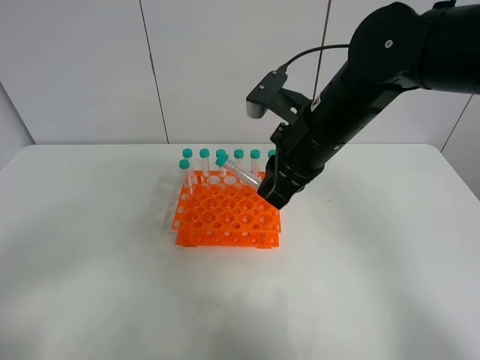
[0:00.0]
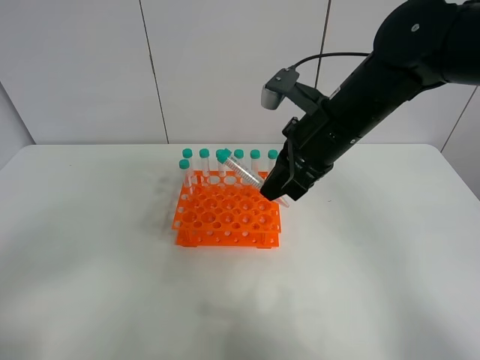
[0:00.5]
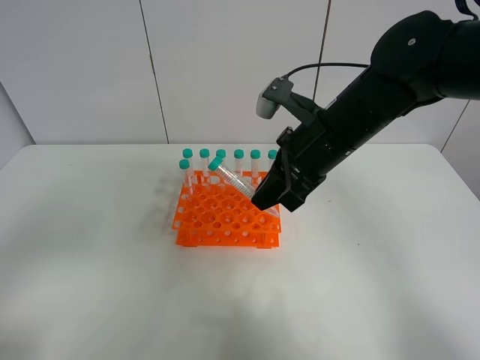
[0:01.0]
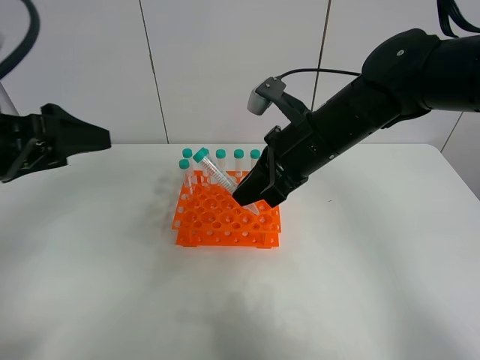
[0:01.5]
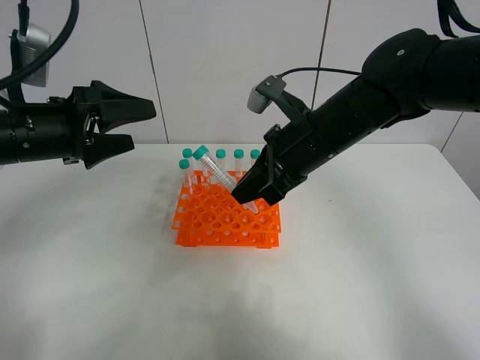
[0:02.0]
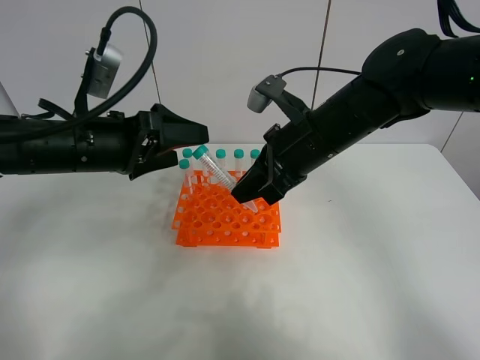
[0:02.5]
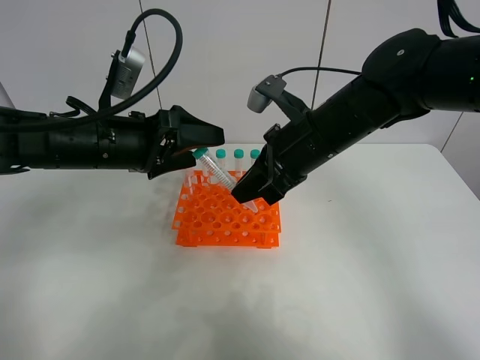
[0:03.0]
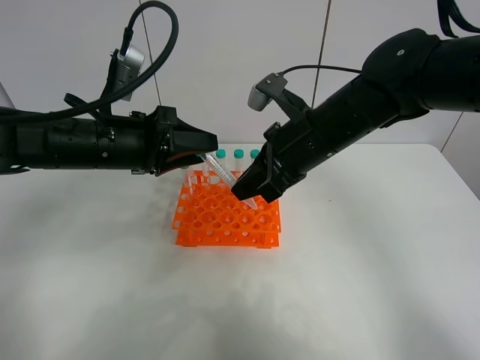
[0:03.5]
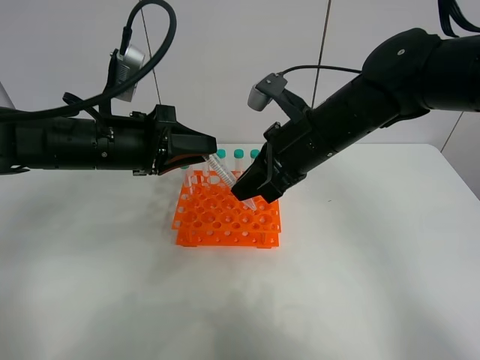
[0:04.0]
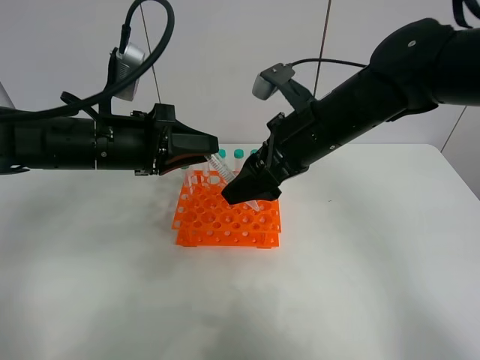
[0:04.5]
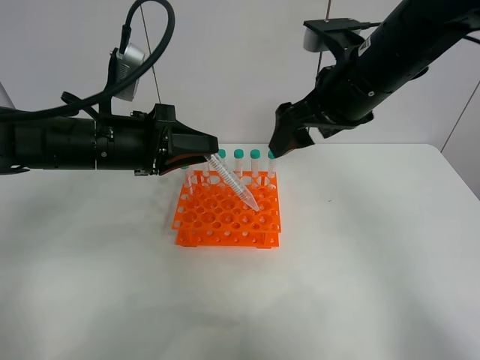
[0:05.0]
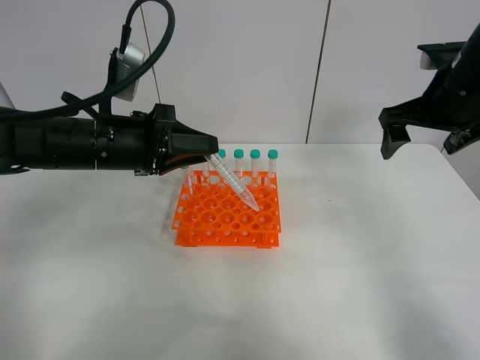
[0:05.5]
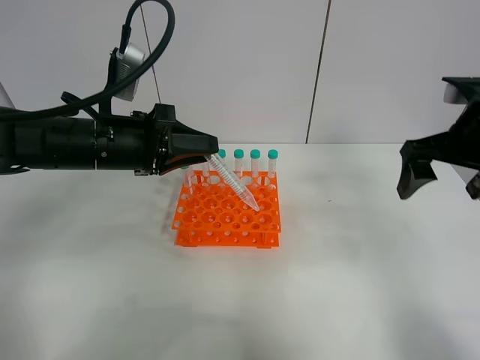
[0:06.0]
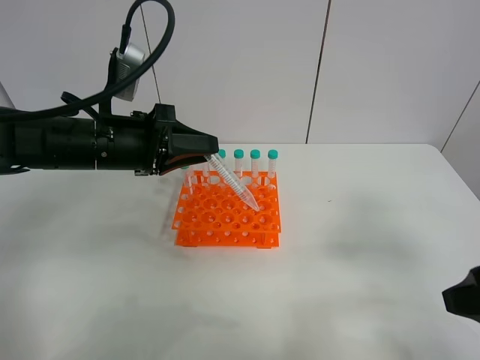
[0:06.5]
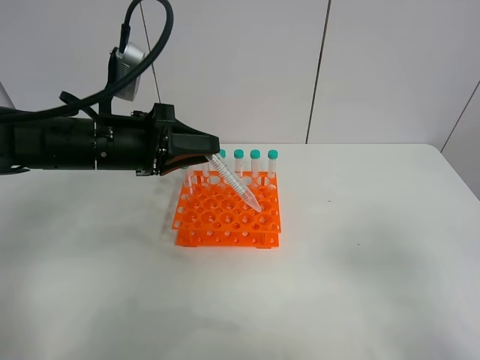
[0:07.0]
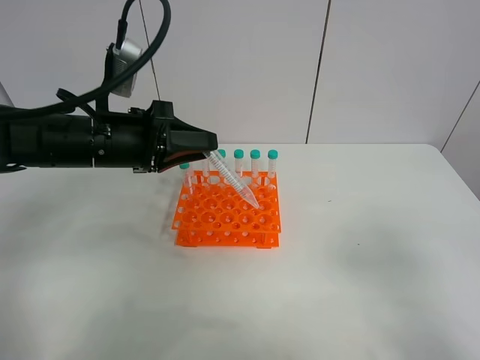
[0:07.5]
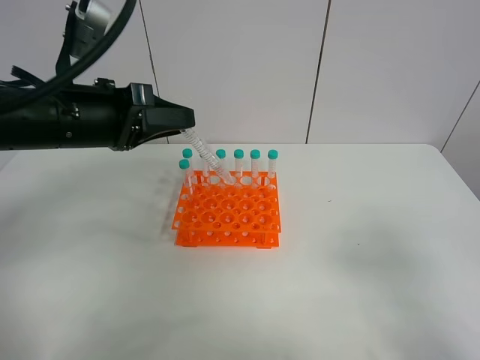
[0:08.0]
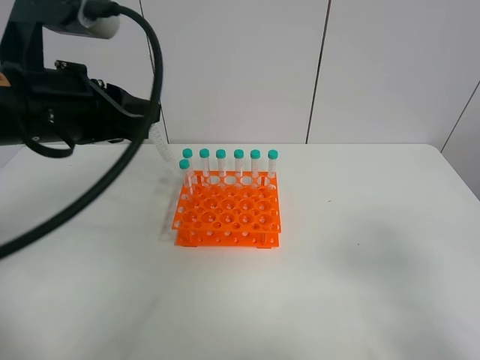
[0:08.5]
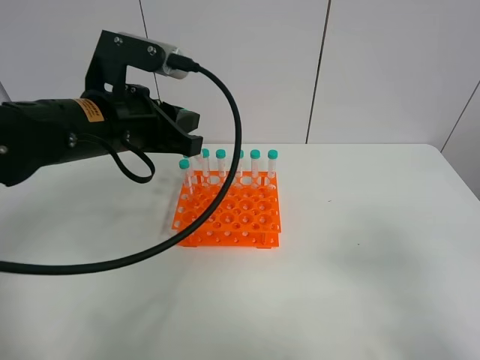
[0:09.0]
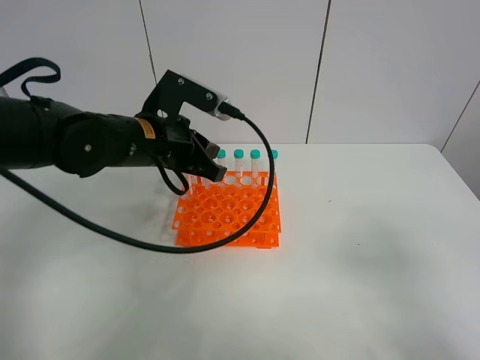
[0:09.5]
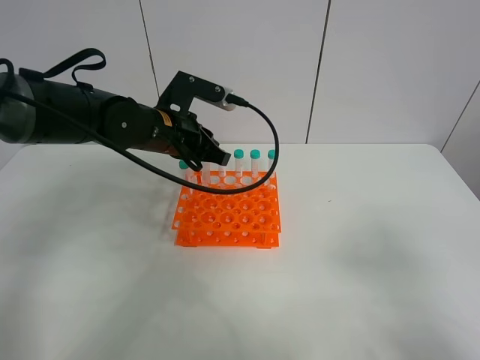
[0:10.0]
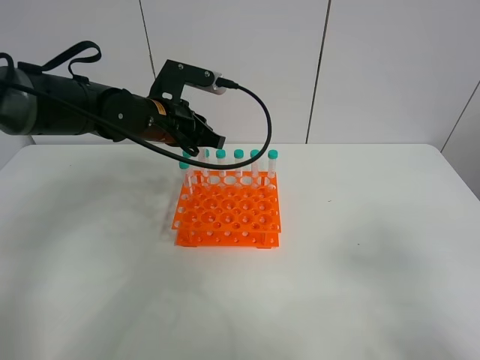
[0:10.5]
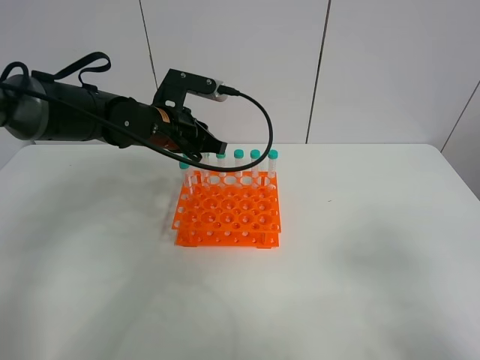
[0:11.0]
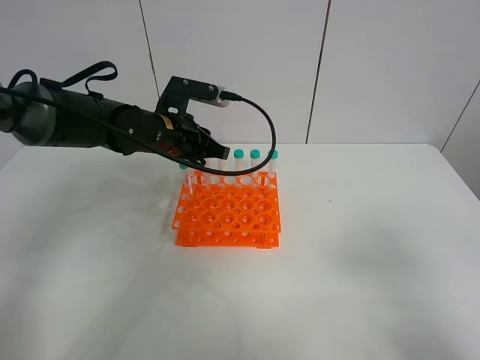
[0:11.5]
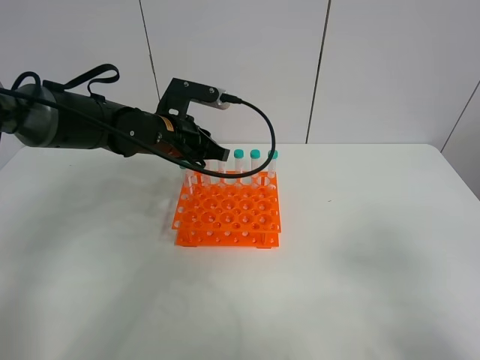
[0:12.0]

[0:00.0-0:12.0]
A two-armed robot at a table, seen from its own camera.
Task of the whole recording: Put the test tube on the table back onto the test tube rack.
Step, 0:00.0 to 0:04.5: Move the test tube from the right gripper to the left gripper.
0:00.0 to 0:02.0: The left gripper is displaced forward by approximately 30 cm.
0:02.0 to 0:04.0: The left gripper travels to the right by some 10 cm, and closes its fingers.
0:04.0 to 0:06.0: The right gripper travels to the right by roughly 20 cm, and opens its fingers.
0:06.0 to 0:08.0: The right gripper is displaced backward by roughly 25 cm. The left gripper ends up roughly 5 cm from where it was.
0:08.0 to 0:10.0: The left gripper is displaced forward, downward and to the right by some 15 cm.
0:10.0 to 0:12.0: There are only small adjustments of the grippers.

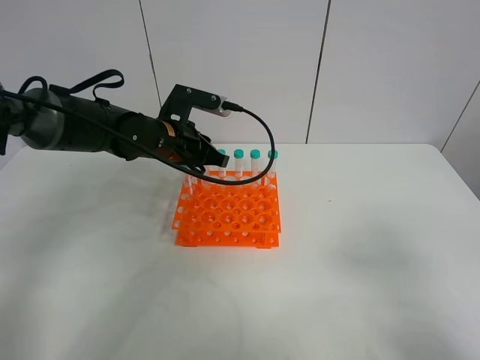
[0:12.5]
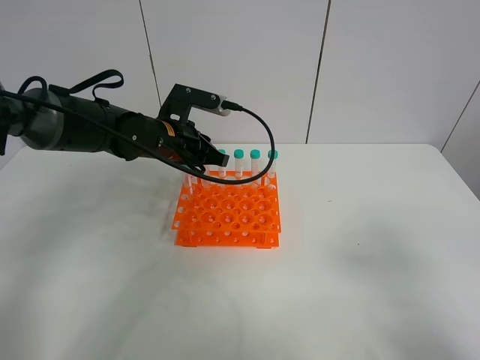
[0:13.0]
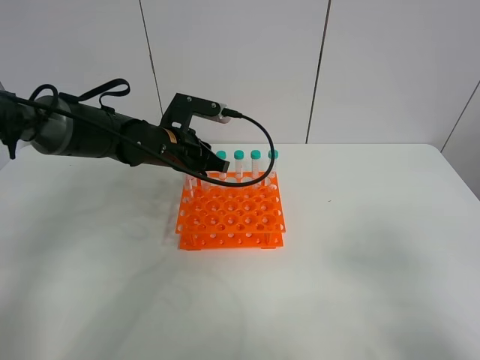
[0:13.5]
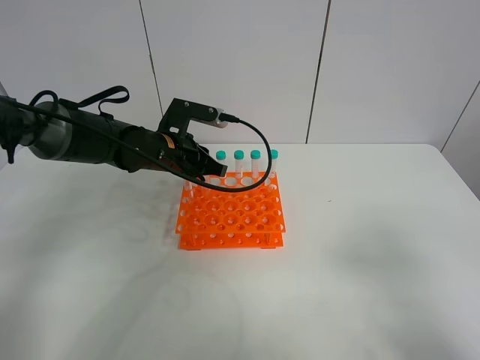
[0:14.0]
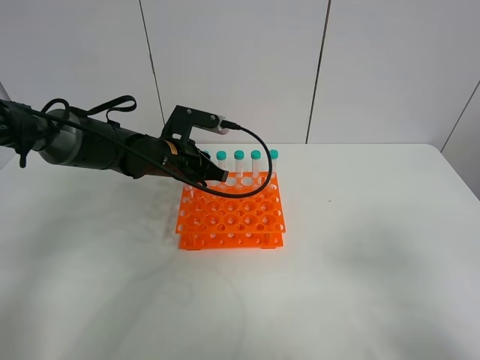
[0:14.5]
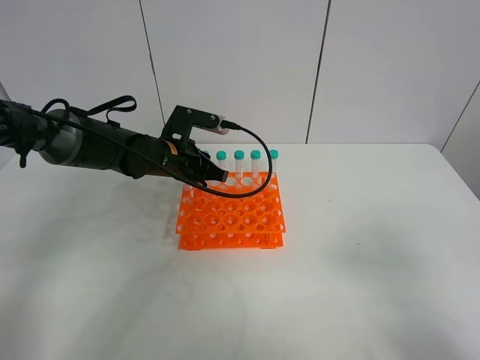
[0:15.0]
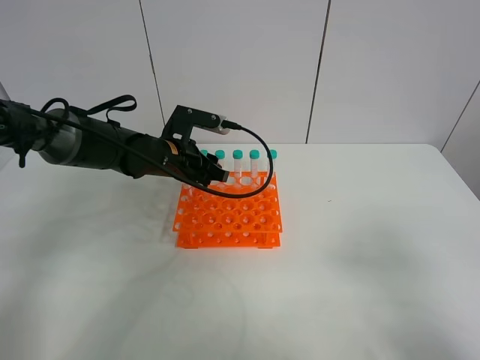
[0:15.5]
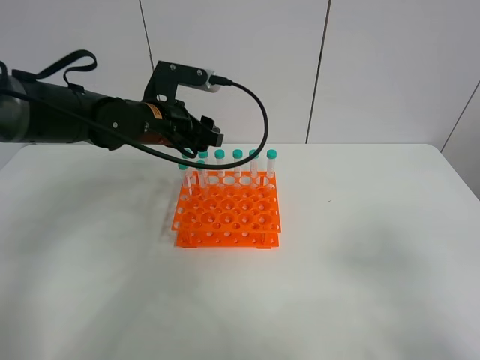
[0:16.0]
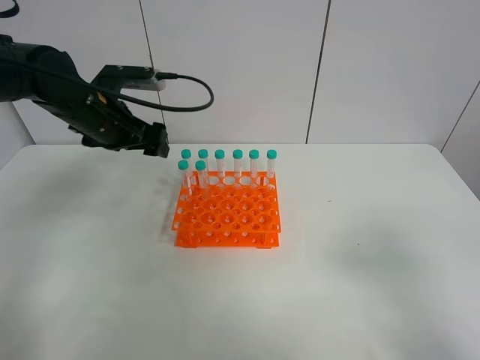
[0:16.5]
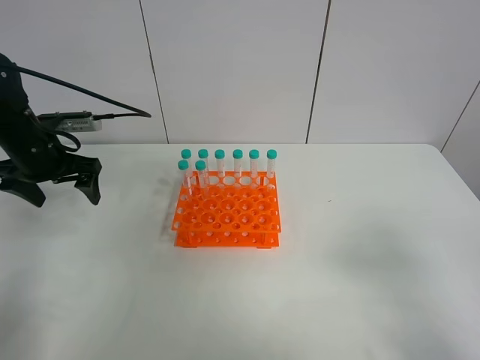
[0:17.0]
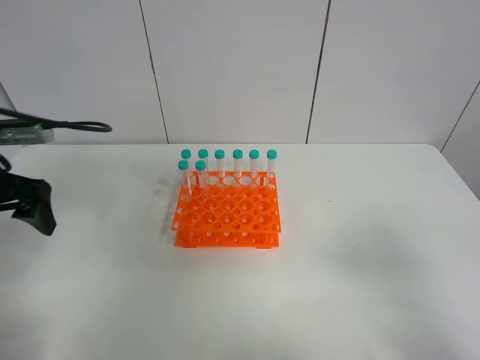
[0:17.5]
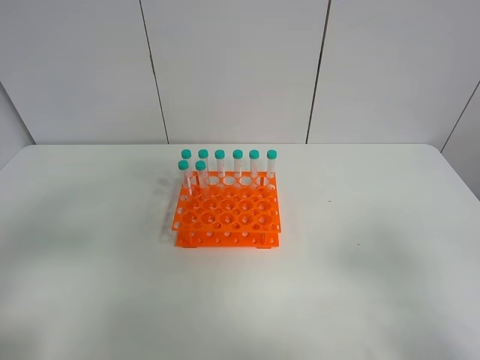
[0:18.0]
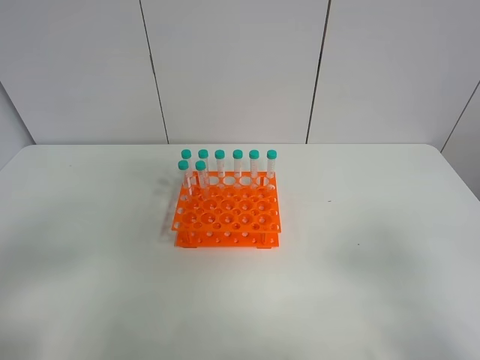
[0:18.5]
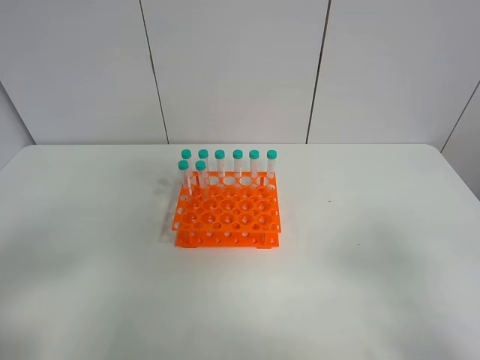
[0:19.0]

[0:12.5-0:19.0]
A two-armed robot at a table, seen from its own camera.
Task of the whole recording: Put the test tube on the table back onto the test tube rack.
Step, 0:12.5 to 0:15.5: Place the test tube on the test tube rack with the left gripper.
0:12.5 to 0:14.5: The grippers move only a little.
0:14.5 to 0:17.0: The left gripper travels to the left by roughly 20 cm, and opens its fingers.
0:17.0 to 0:19.0: The left gripper travels backward by about 35 cm.

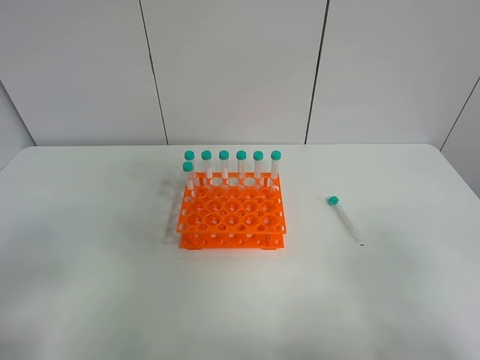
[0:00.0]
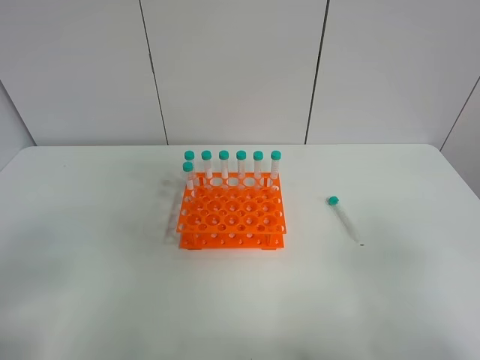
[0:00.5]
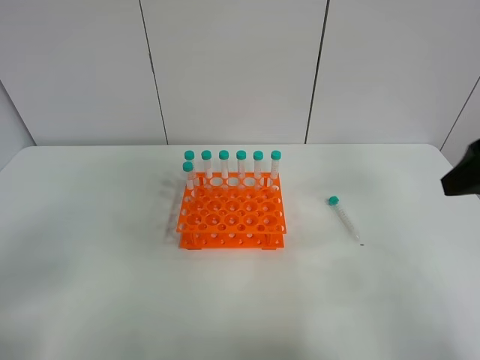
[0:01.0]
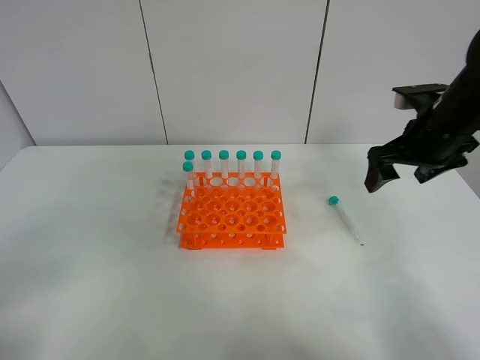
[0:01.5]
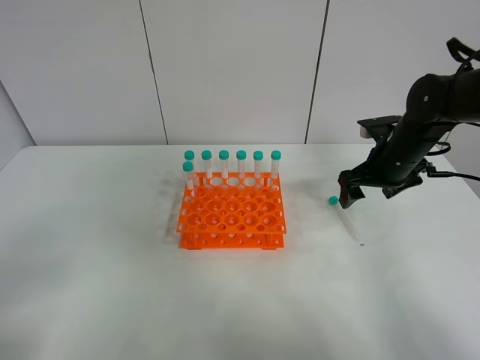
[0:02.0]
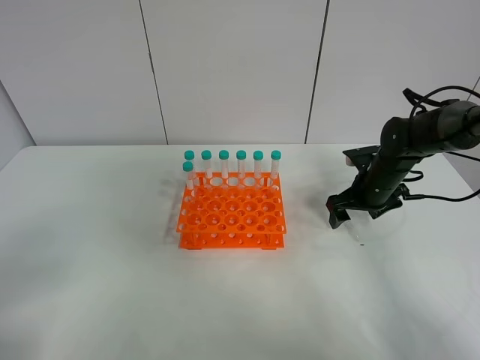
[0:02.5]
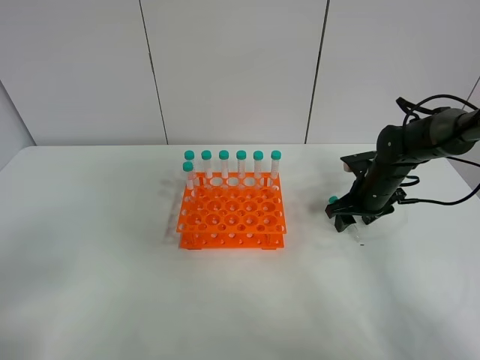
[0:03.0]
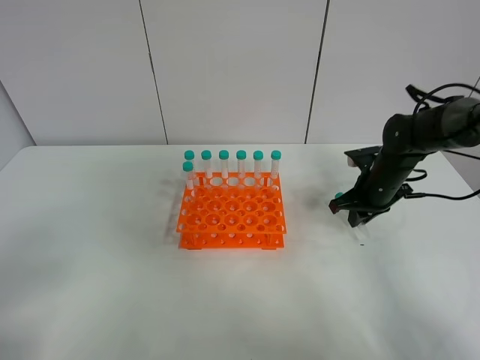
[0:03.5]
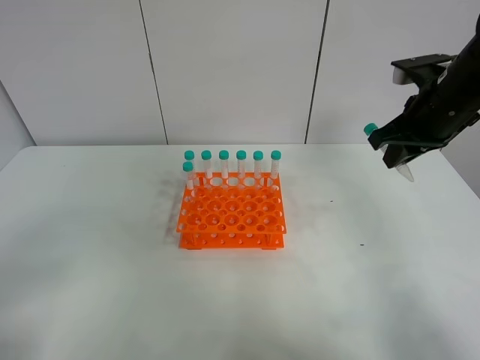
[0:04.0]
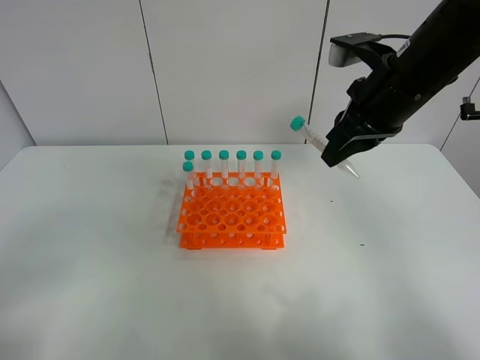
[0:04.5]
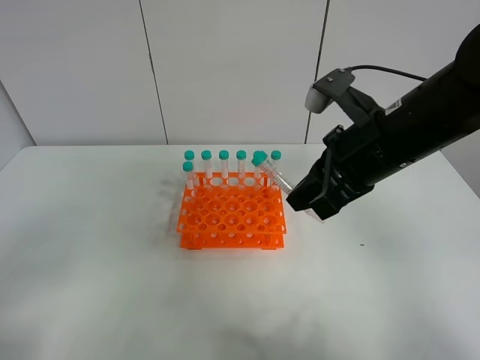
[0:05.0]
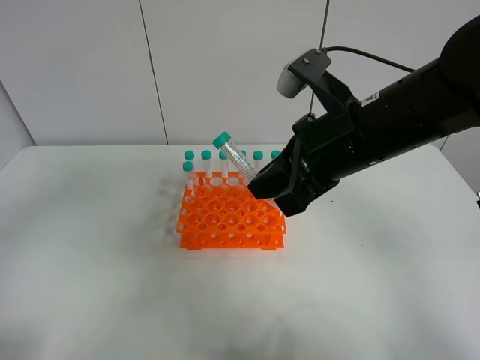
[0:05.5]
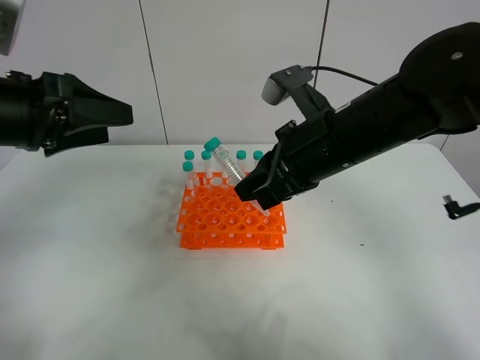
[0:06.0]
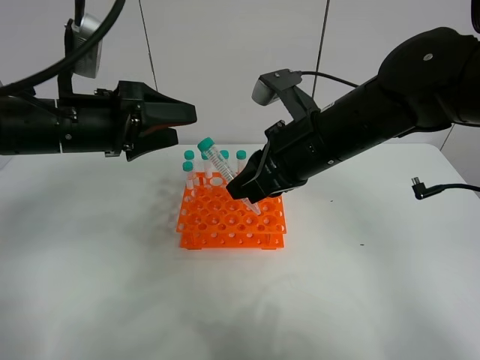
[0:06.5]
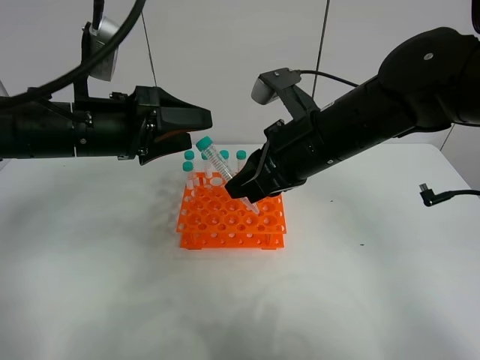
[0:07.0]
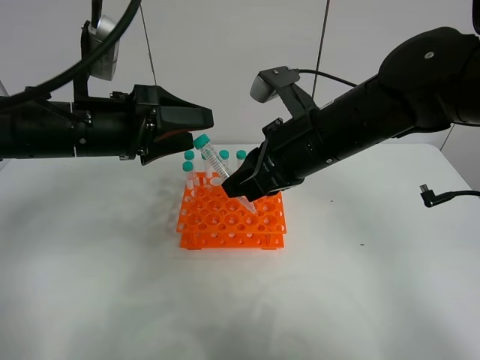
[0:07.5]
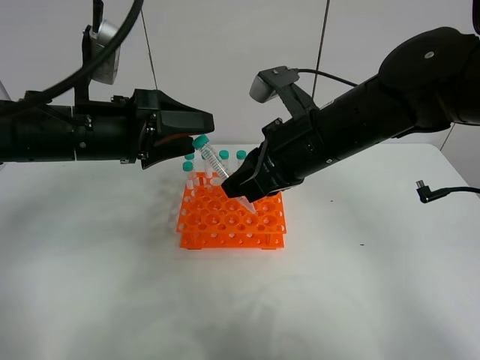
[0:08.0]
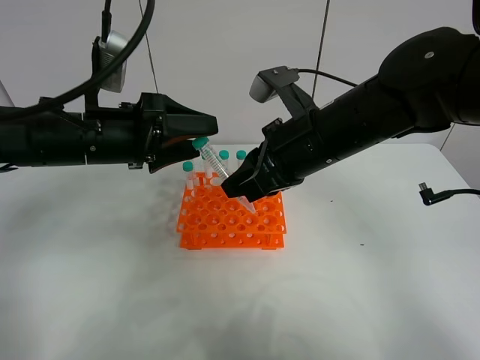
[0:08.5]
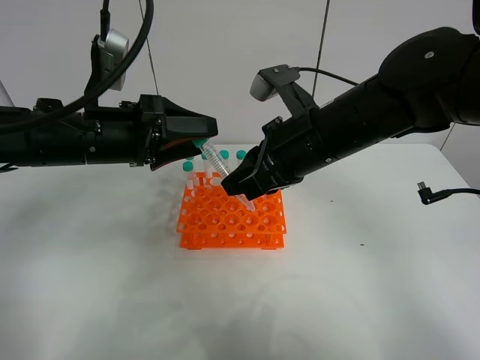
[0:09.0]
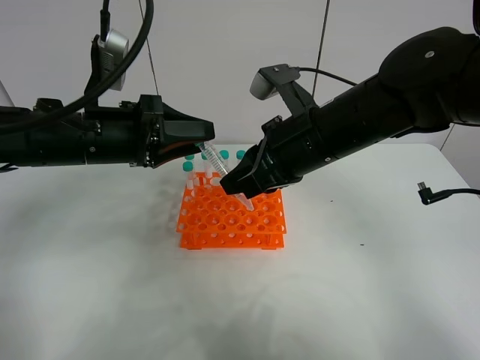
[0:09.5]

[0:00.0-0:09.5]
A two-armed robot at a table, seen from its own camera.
Task of the whole recording: Put the test tube on the table back onto the test tube rack.
Step, 0:00.0 to 0:03.0: Pick up the test tube with the right gripper.
0:00.0 to 0:02.0: The right gripper moves forward, some 35 cm.
0:02.0 to 0:04.0: The right gripper travels upward by approximately 10 cm, and closes its fingers.
0:04.0 to 0:05.5: The left gripper heads forward and upward, covering approximately 15 cm. Meanwhile the right gripper travels to the left and backward by some 15 cm.
0:05.5 to 0:07.5: The left gripper travels forward, to the right and downward by about 20 cm.
0:07.5 to 0:09.5: The left gripper closes up.
